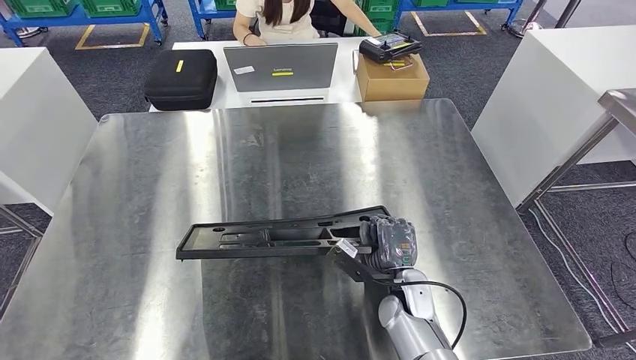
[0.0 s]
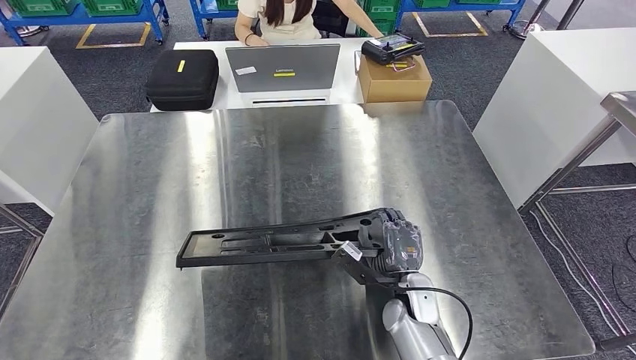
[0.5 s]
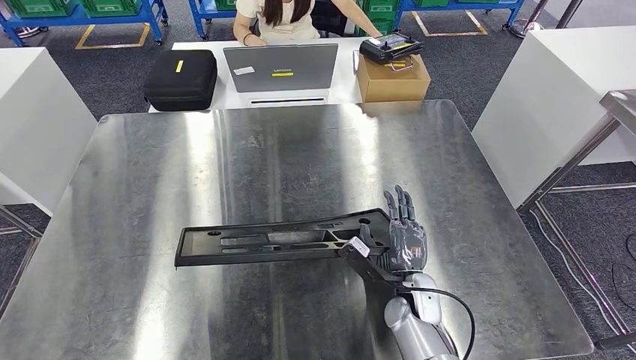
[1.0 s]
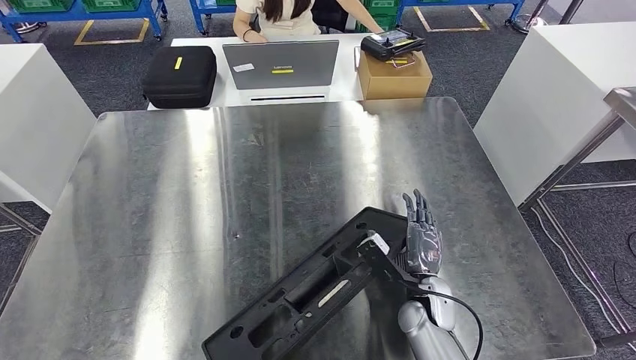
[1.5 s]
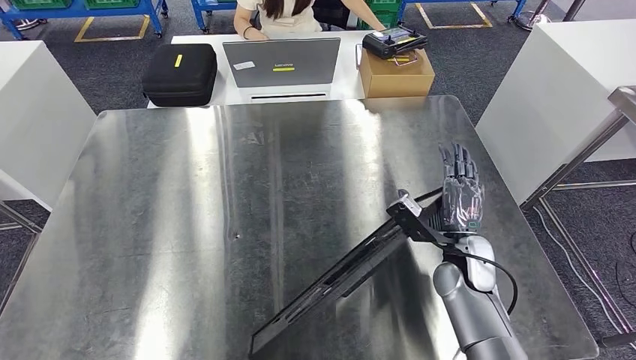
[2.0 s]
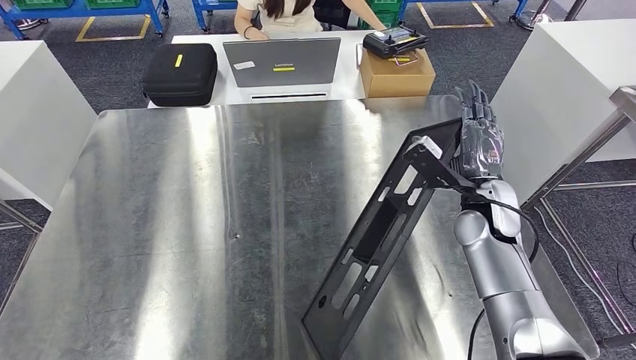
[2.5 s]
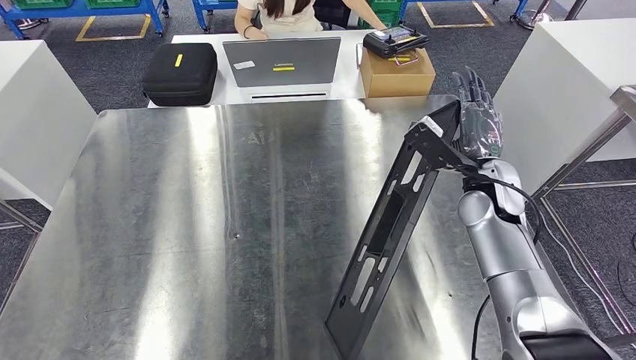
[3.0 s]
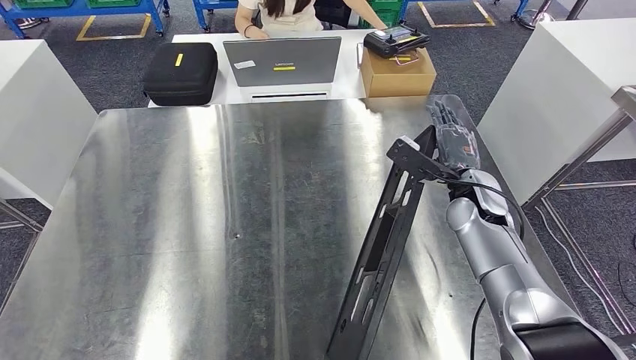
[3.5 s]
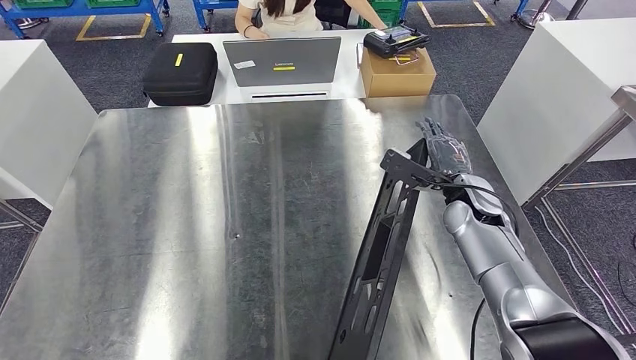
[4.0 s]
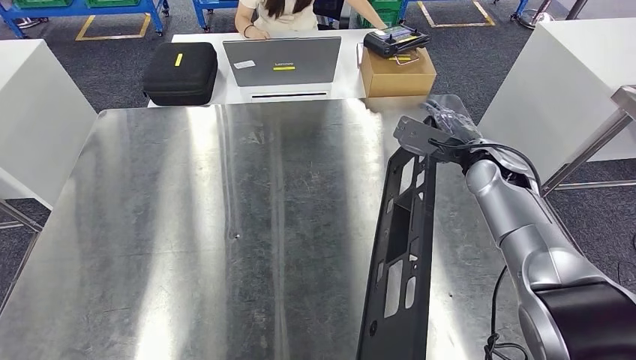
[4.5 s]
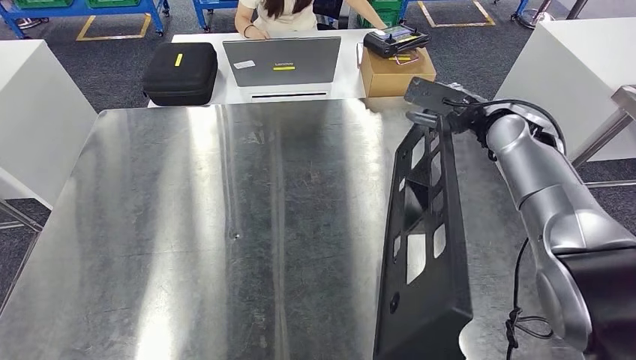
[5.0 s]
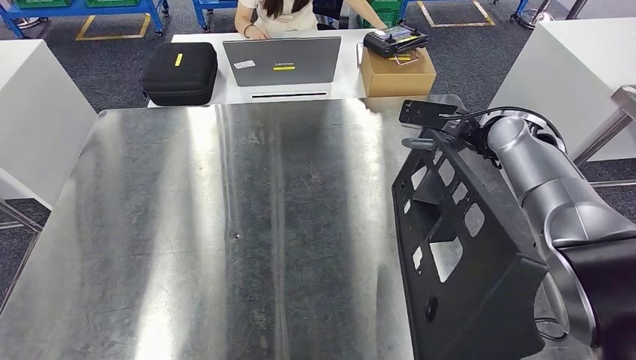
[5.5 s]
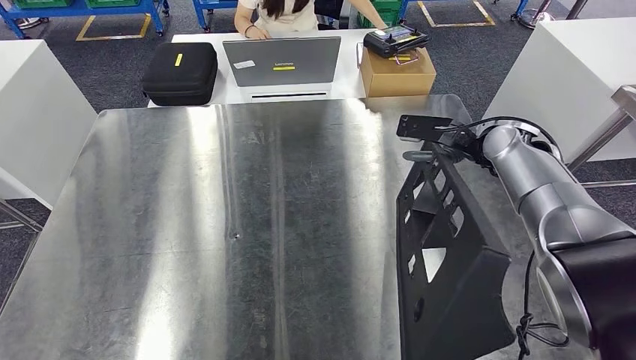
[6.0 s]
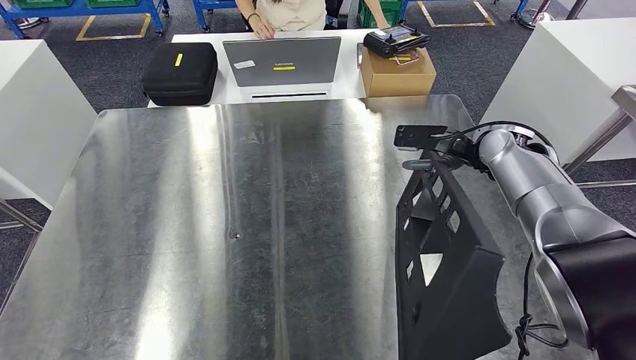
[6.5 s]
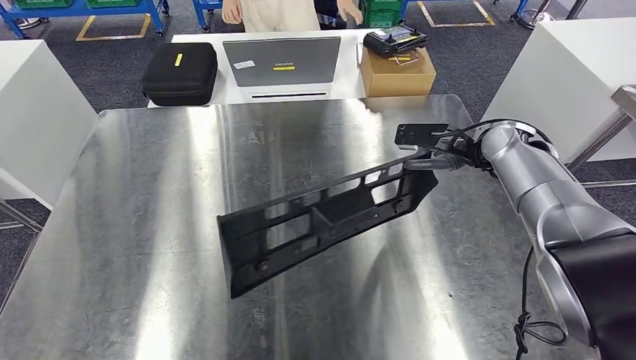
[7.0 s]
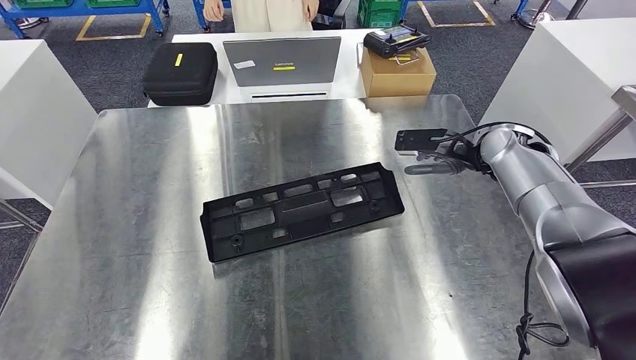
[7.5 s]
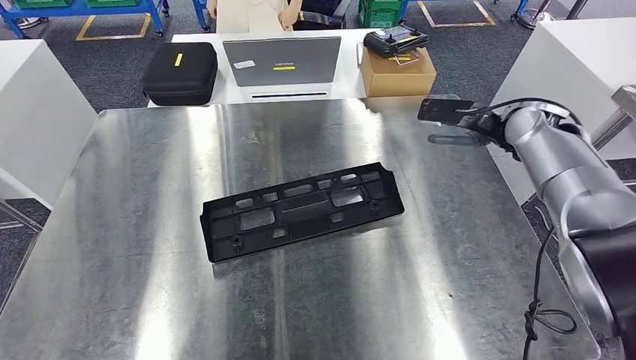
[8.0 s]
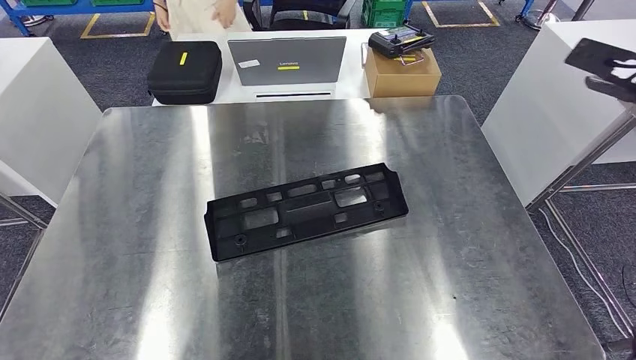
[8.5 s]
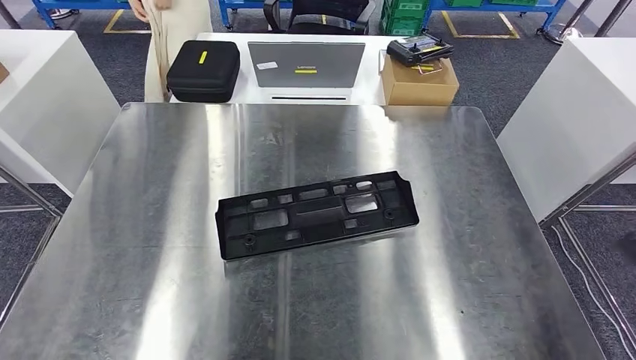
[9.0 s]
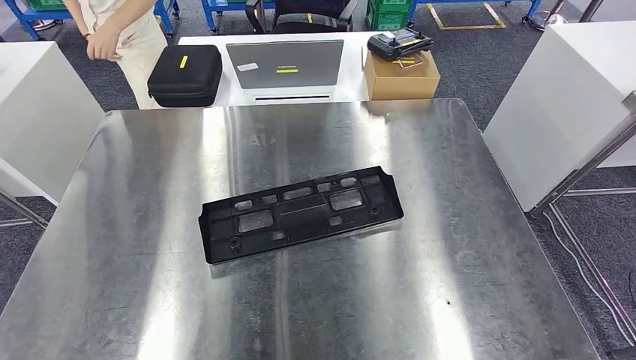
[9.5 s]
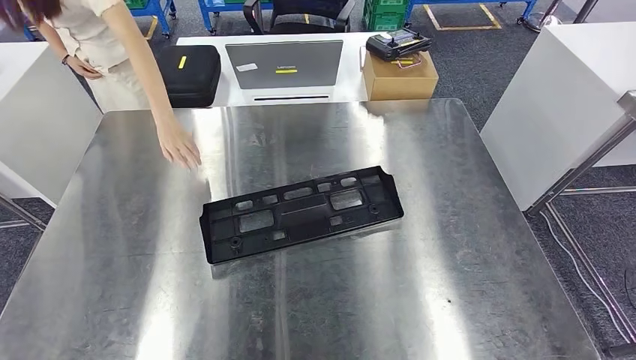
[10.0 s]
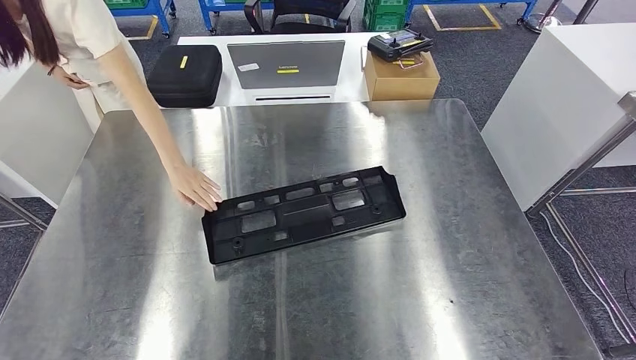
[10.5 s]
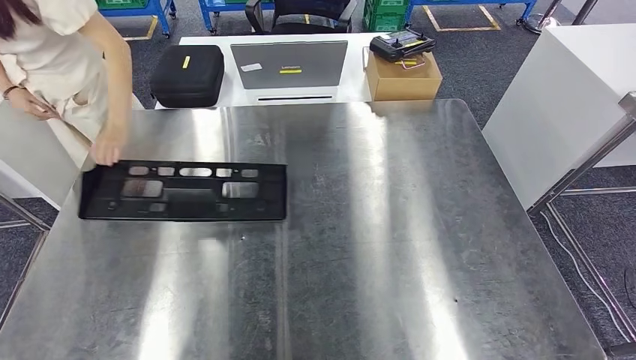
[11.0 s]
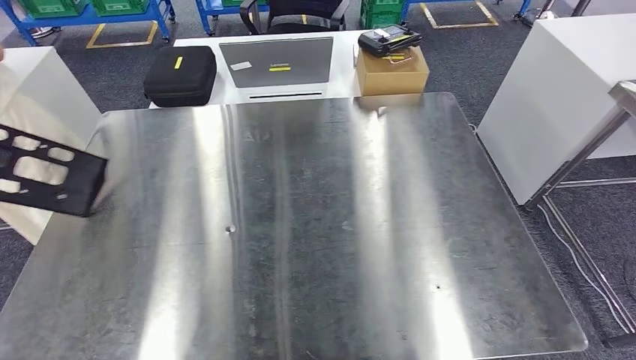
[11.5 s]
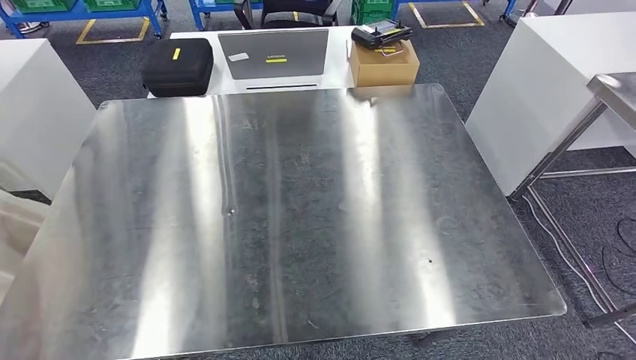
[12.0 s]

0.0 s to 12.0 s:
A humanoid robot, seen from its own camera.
Step, 0.0 to 9.5 s: Insert the large material into the corresponding slot on the workbench.
2.0 to 4.0 s: The right hand heads forward and upward, covering about 10 cm.

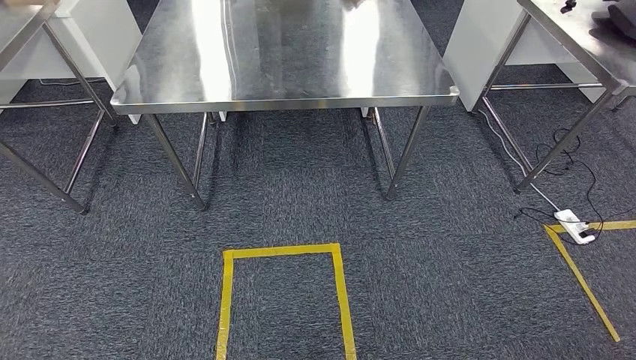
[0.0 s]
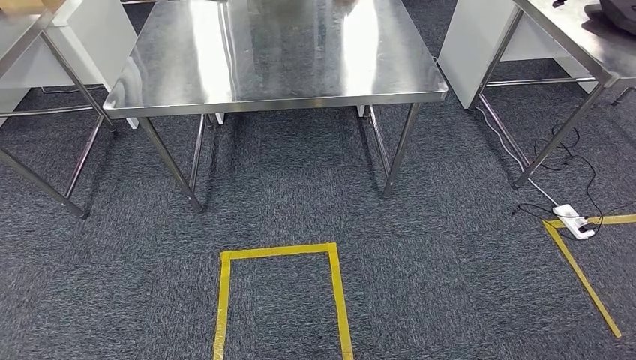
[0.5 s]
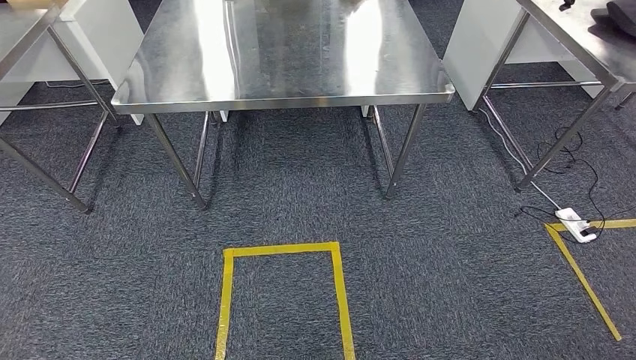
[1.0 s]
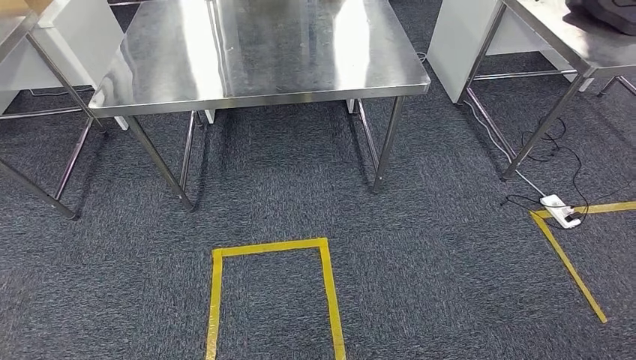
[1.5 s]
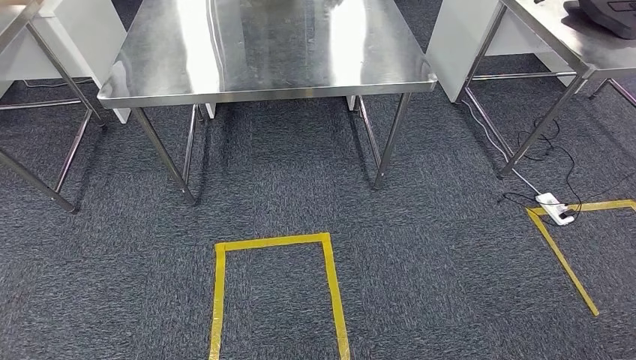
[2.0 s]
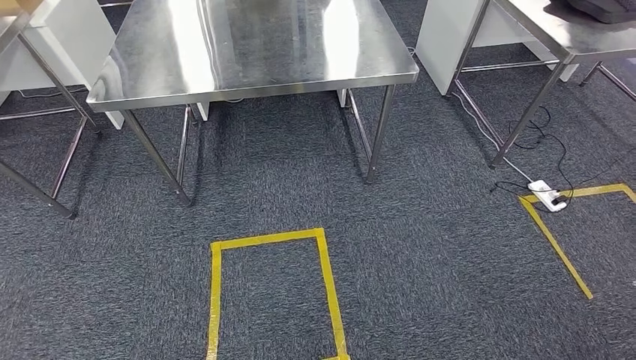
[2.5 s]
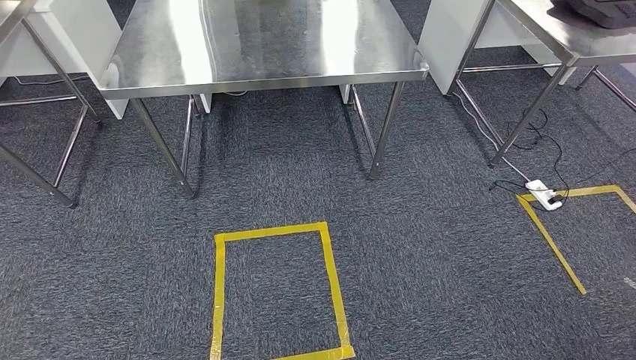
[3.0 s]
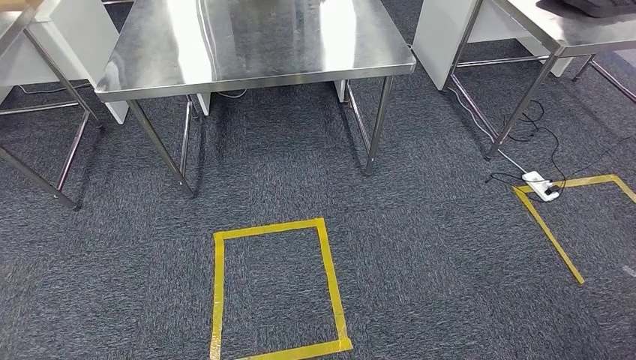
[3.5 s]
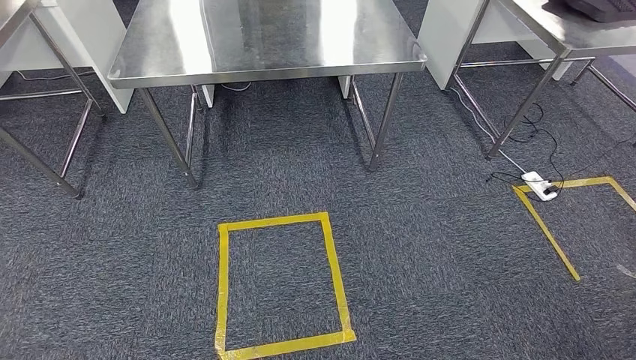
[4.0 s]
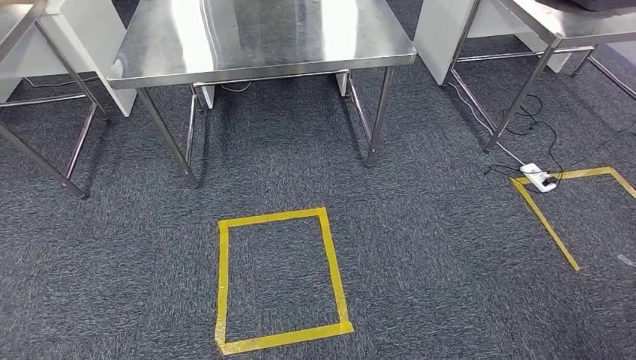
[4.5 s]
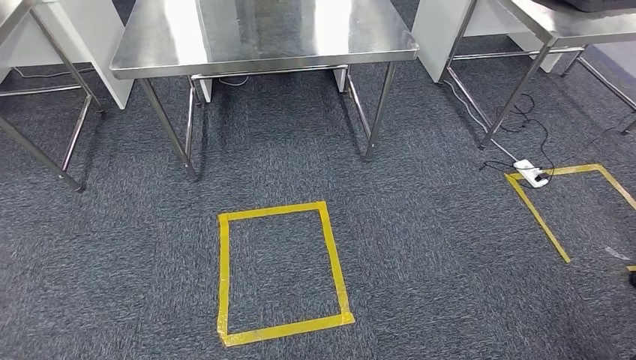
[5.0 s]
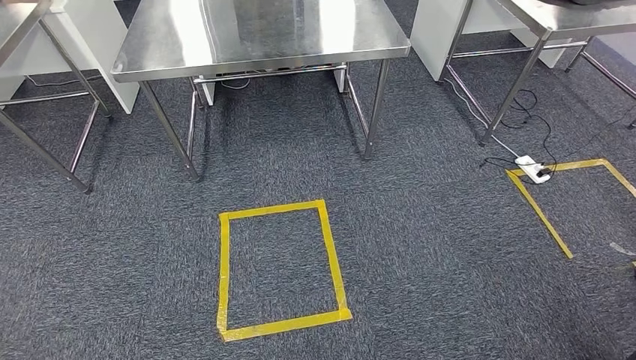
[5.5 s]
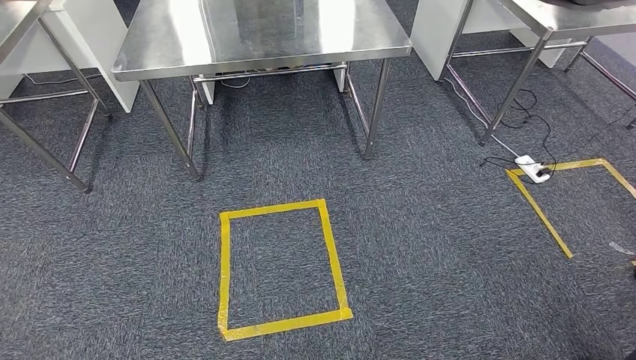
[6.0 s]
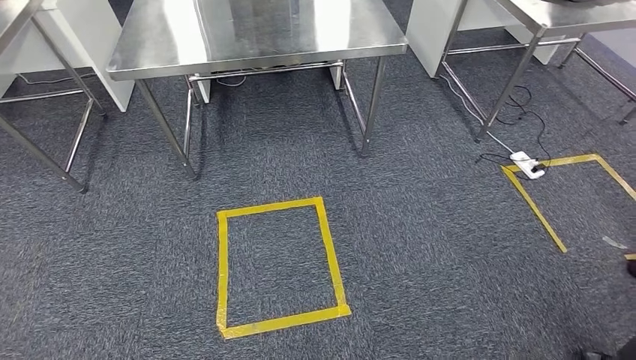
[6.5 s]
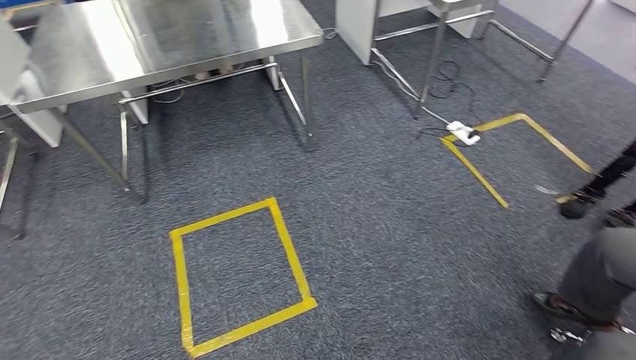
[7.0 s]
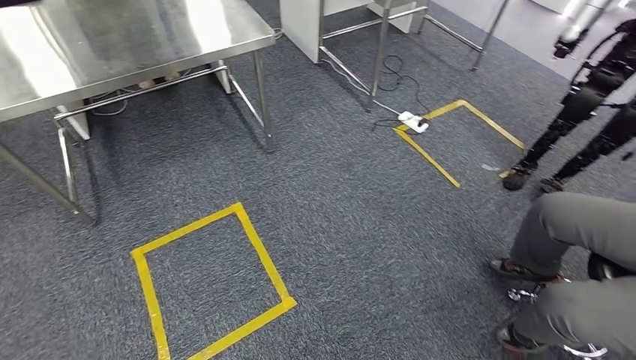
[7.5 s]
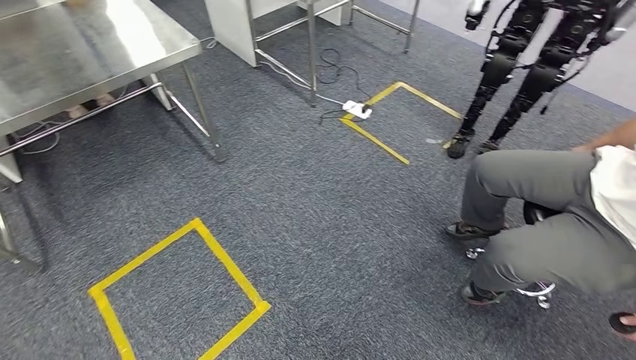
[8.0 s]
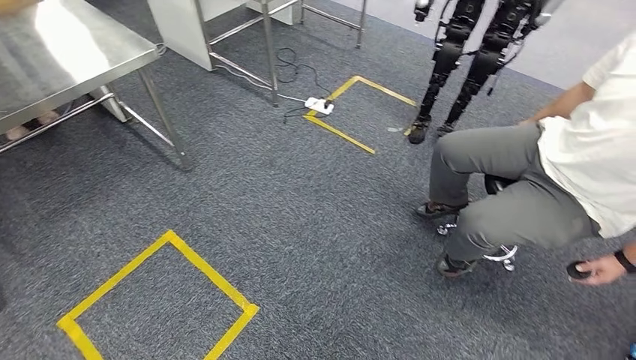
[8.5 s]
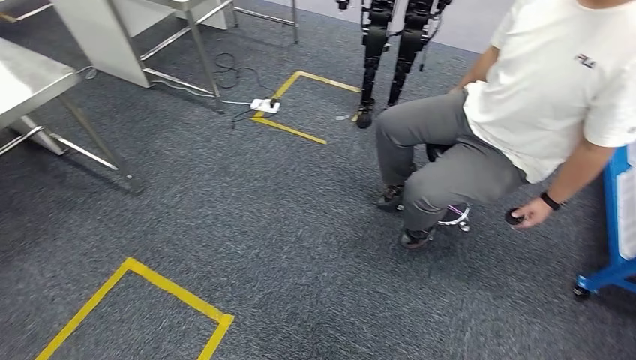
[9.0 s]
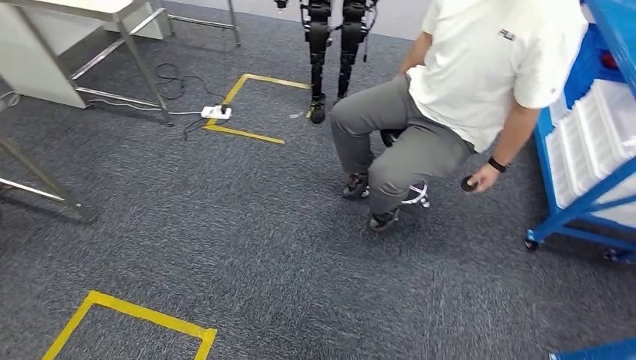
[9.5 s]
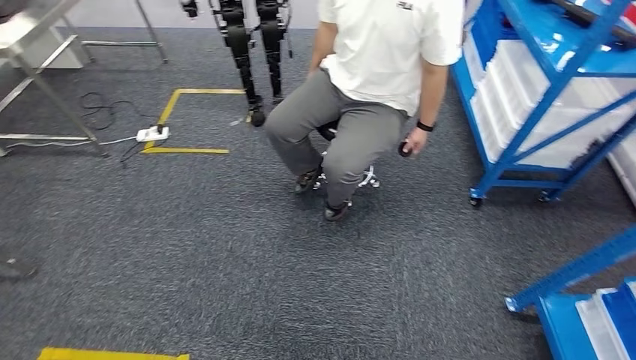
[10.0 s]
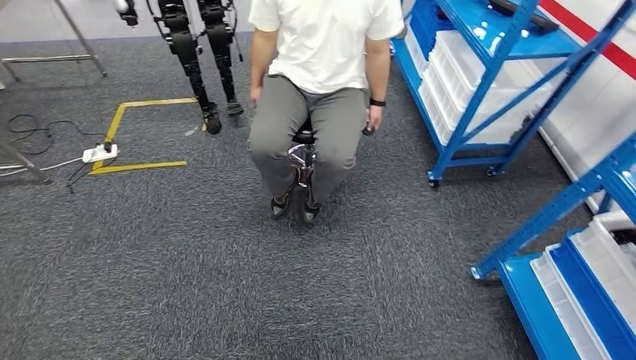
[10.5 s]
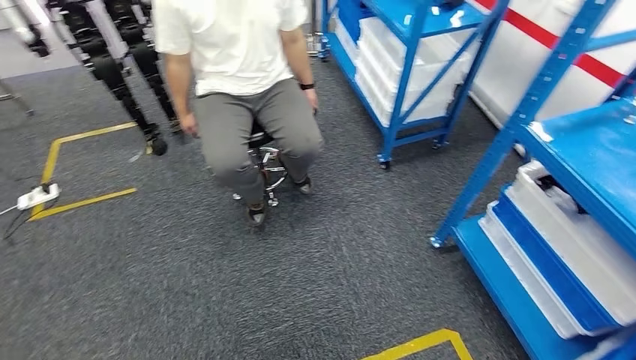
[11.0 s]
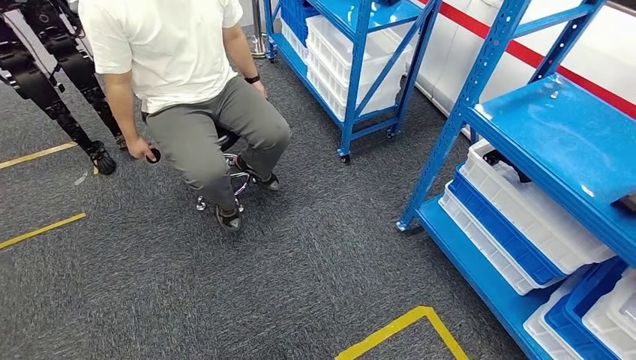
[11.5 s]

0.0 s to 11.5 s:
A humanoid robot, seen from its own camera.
2.0 to 6.0 s: Both hands stay about where they are.
